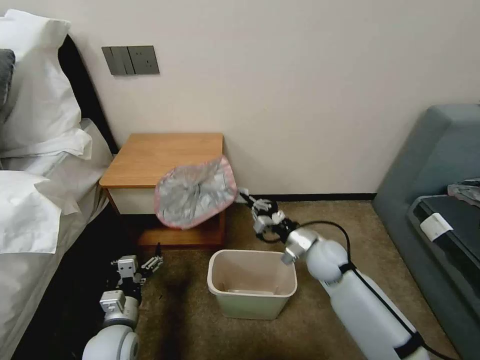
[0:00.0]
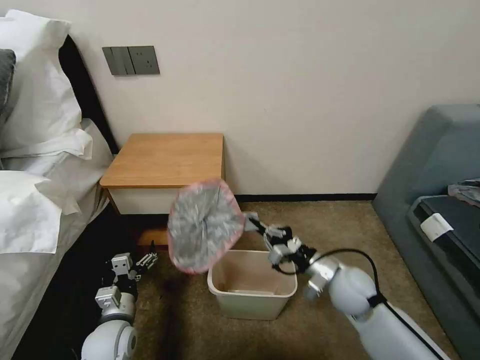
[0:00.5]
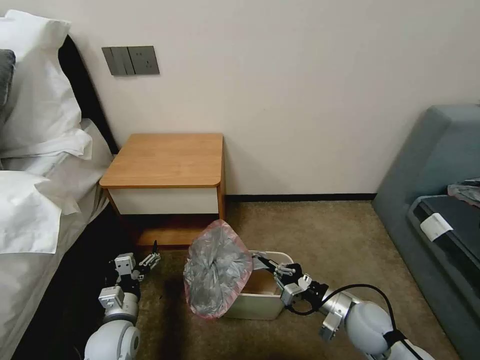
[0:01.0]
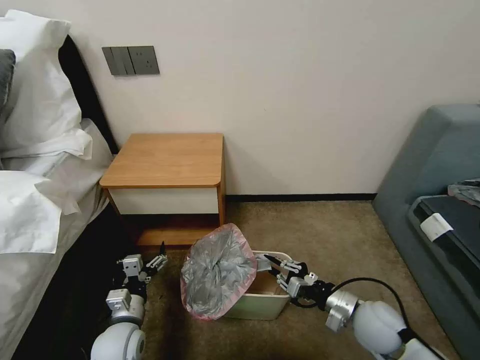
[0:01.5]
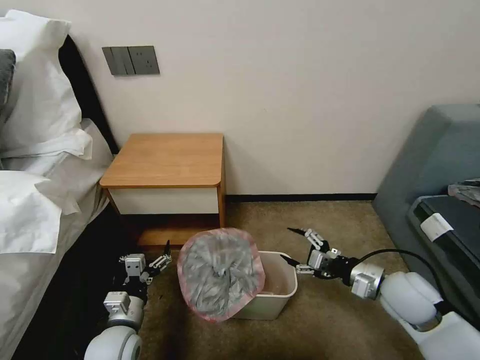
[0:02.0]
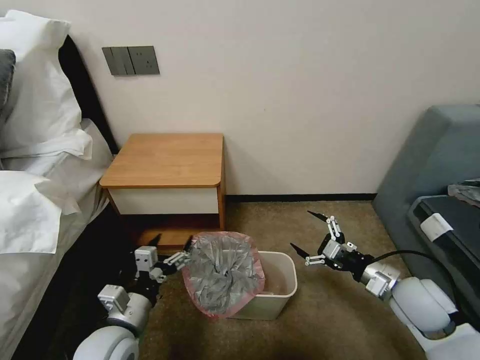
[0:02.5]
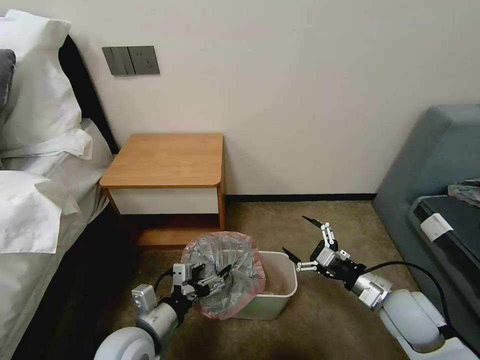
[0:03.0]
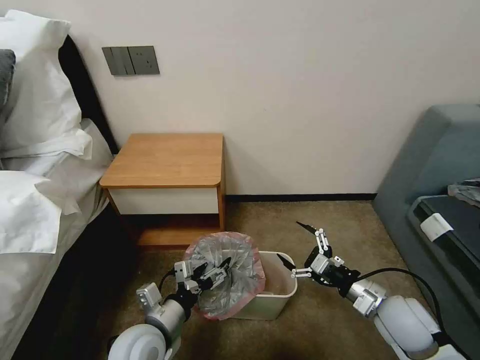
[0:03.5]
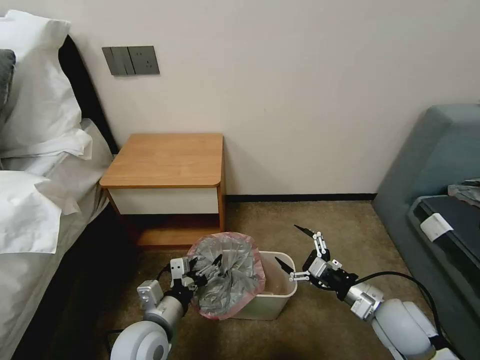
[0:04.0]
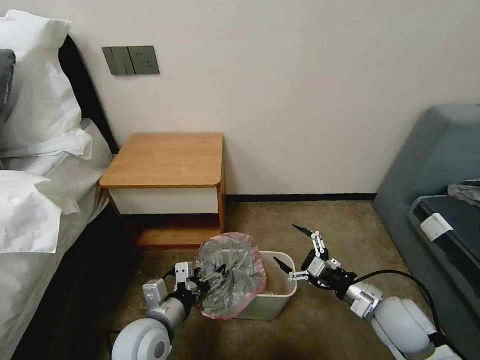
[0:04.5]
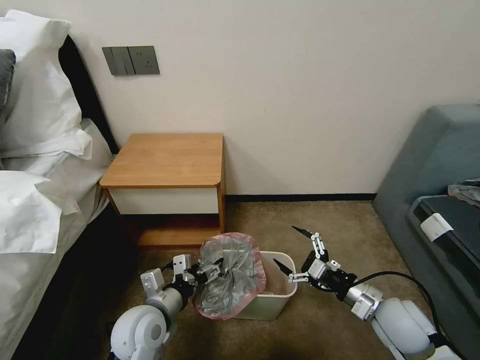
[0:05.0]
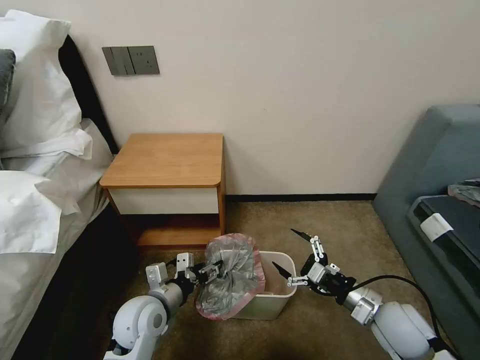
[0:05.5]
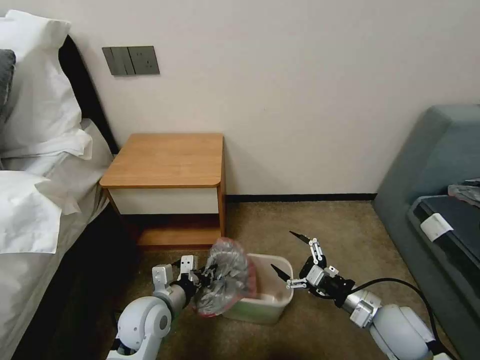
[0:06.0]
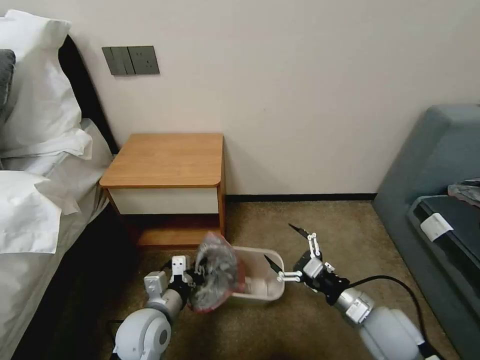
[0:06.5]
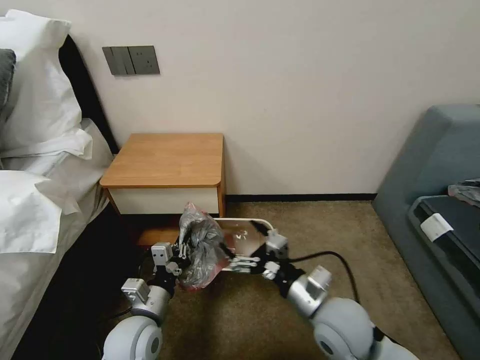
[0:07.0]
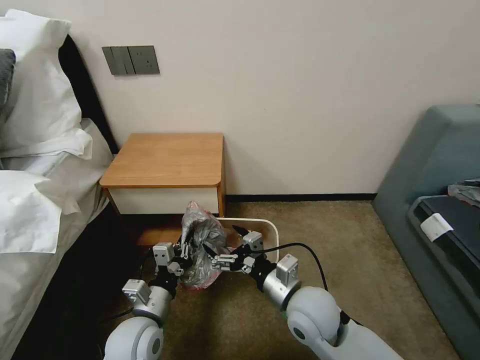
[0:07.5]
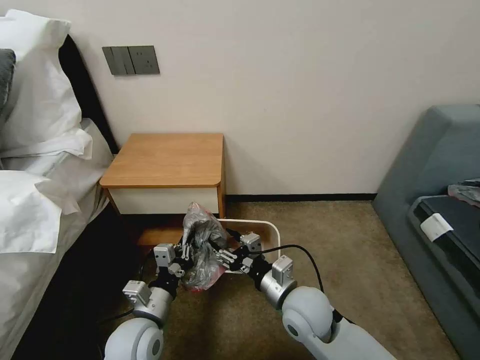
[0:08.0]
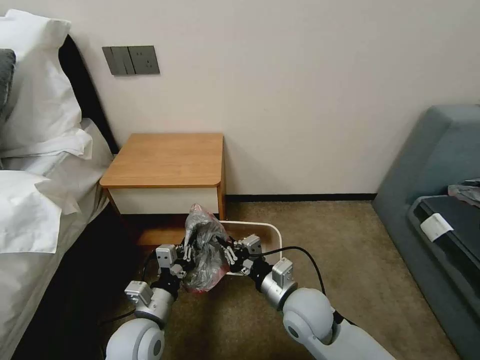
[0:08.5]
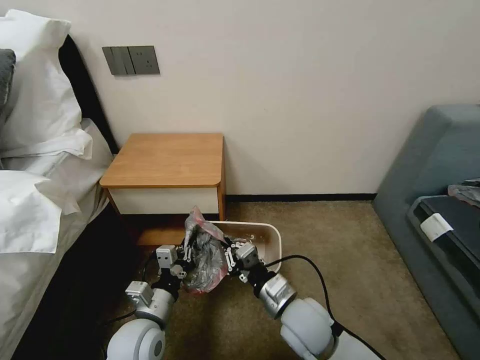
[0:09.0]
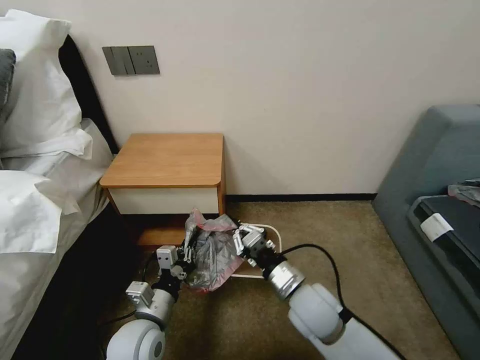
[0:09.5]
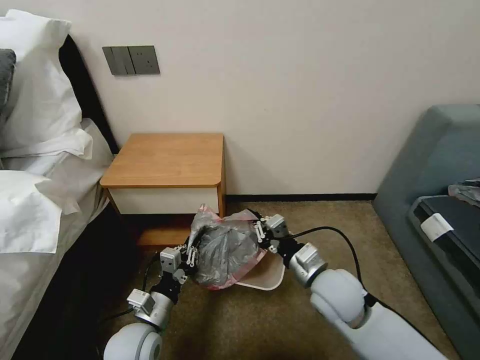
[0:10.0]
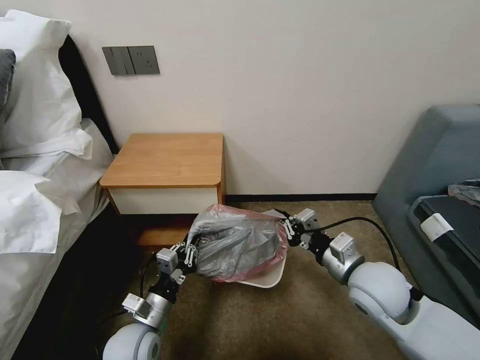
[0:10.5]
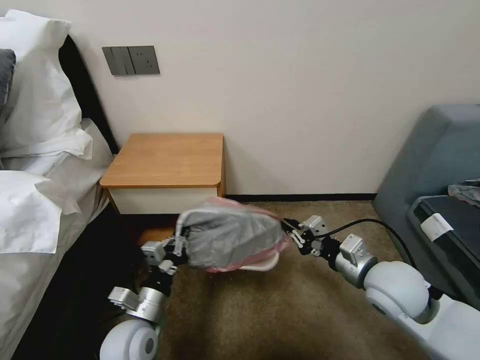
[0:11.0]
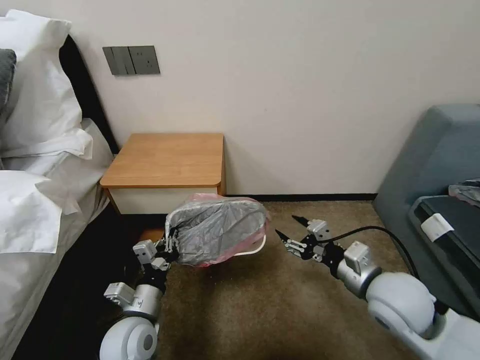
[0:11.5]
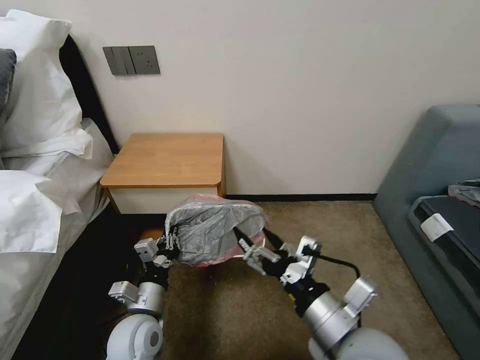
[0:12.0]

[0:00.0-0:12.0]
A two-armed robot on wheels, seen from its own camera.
Task of the whole recording: Pick up the garbage bag from the table and place it over the trash can.
0:00.0 to 0:02.0: The right gripper is displaced to the right and backward by roughly 15 cm, and opens up.
0:02.0 to 0:04.0: The left gripper shifts some 10 cm to the right and upward; the right gripper moves about 5 cm.
0:04.0 to 0:06.0: The left gripper shifts by approximately 5 cm, and closes its fingers.
0:06.0 to 0:08.0: The right gripper travels to the left by roughly 20 cm, and closes its fingers.
0:08.0 to 0:10.0: The right gripper goes about 5 cm to the right, and closes.
0:10.0 to 0:12.0: The right gripper goes roughly 15 cm backward and upward, and opens up.

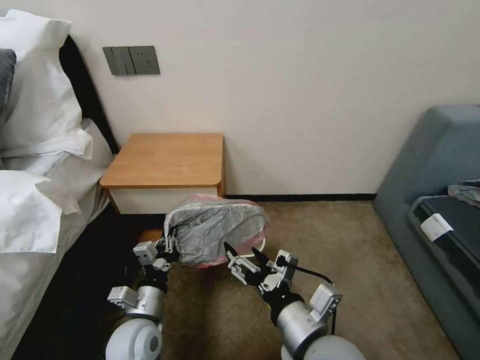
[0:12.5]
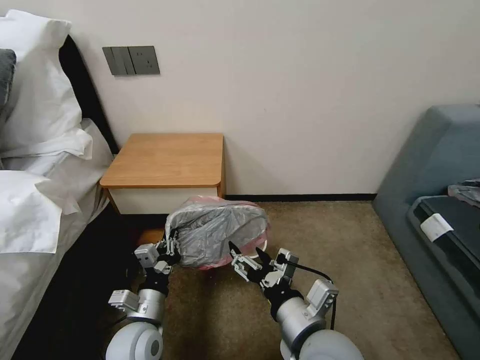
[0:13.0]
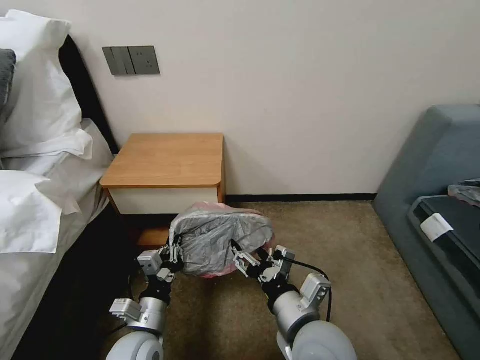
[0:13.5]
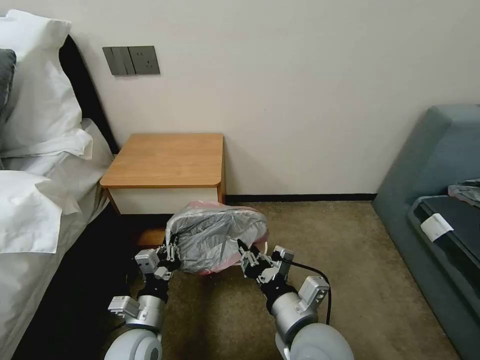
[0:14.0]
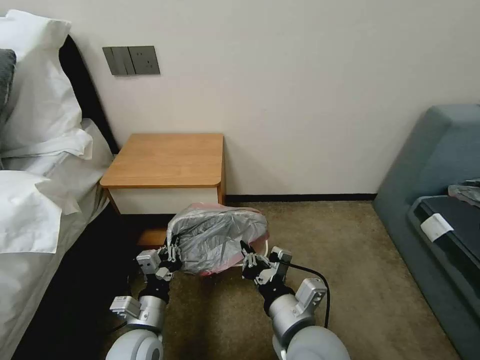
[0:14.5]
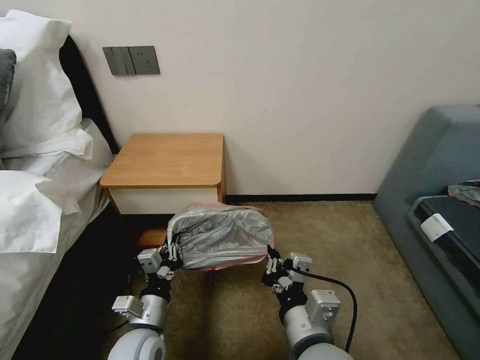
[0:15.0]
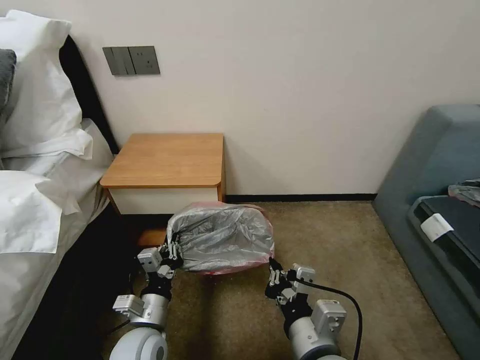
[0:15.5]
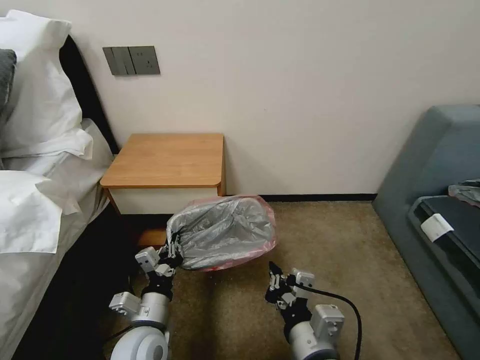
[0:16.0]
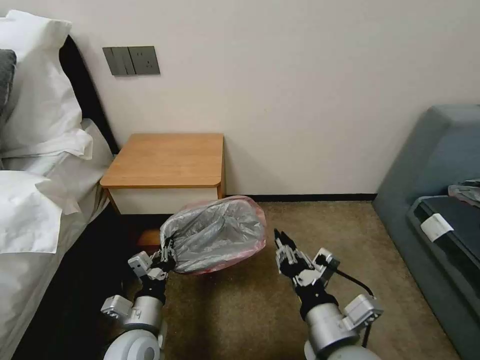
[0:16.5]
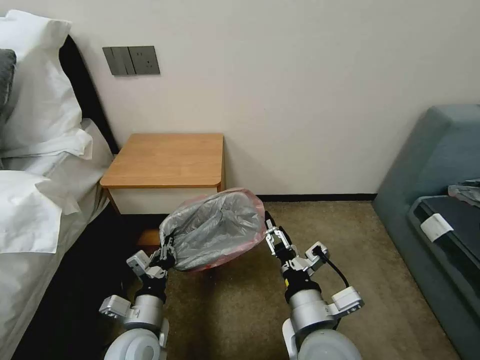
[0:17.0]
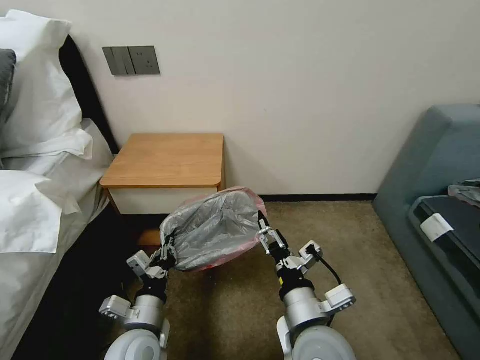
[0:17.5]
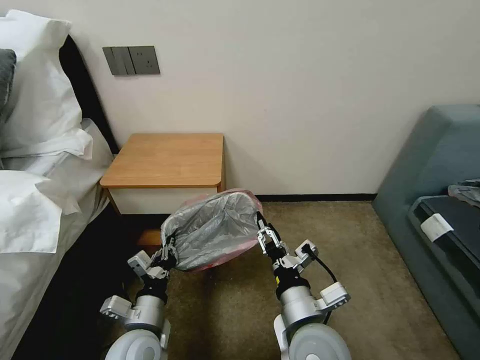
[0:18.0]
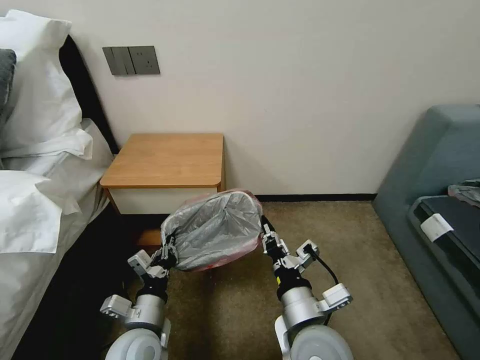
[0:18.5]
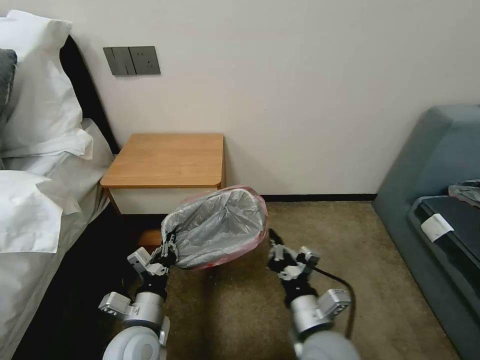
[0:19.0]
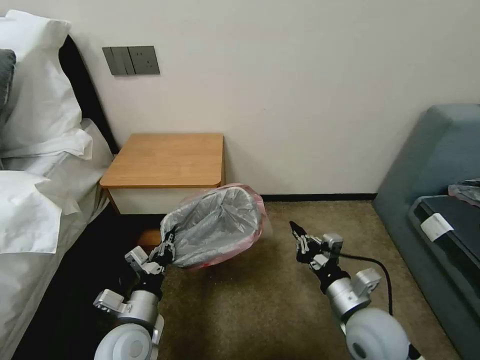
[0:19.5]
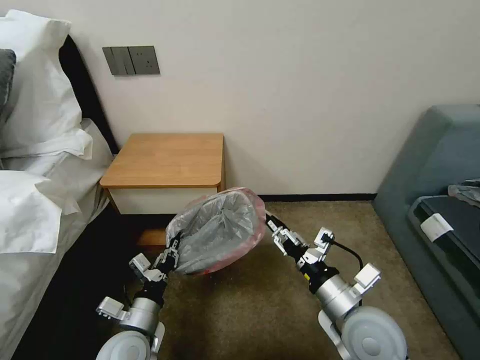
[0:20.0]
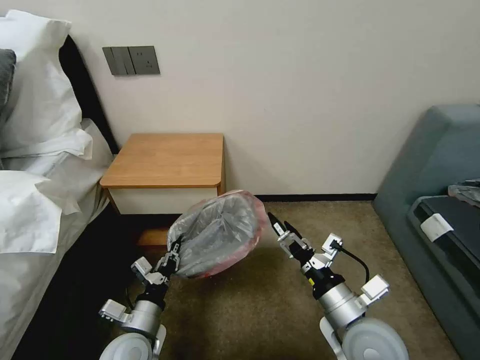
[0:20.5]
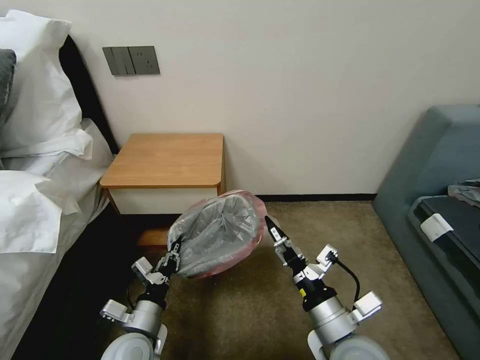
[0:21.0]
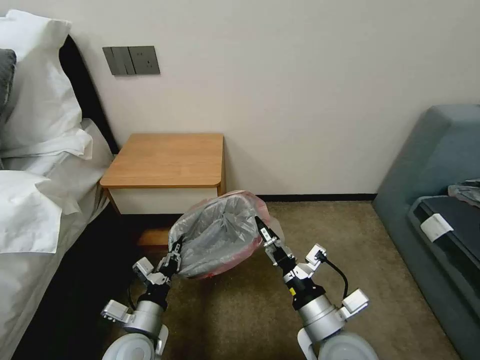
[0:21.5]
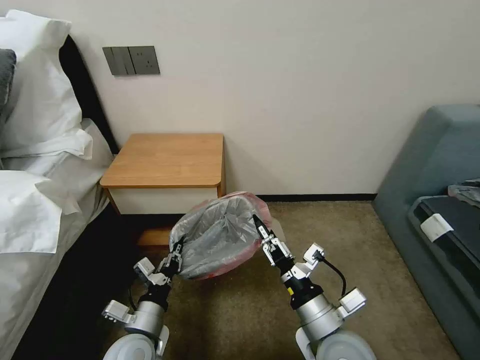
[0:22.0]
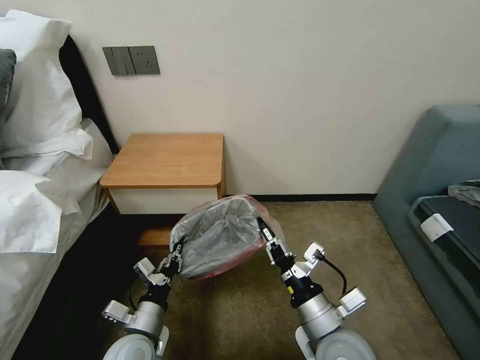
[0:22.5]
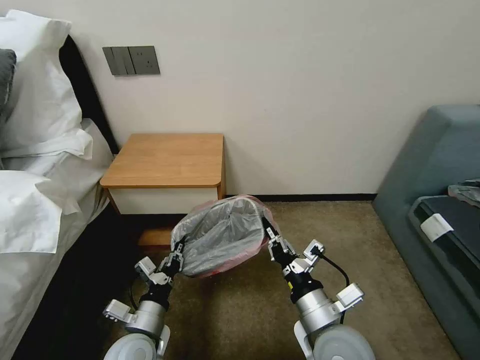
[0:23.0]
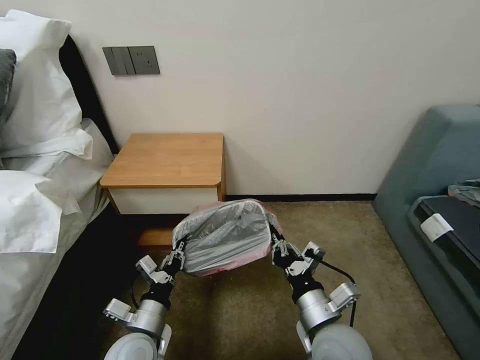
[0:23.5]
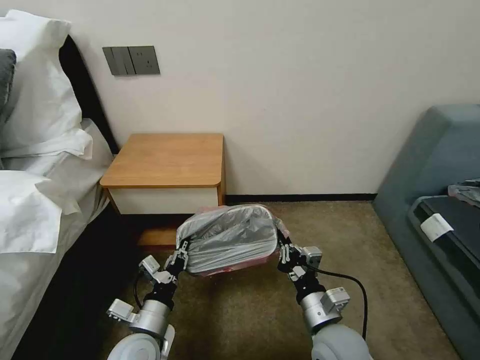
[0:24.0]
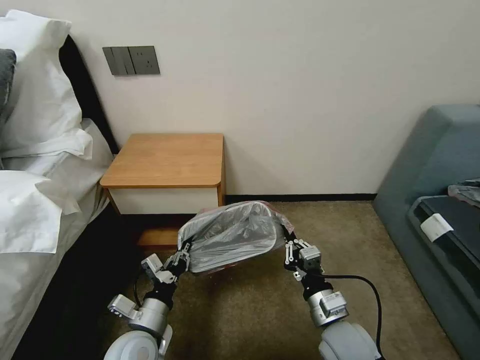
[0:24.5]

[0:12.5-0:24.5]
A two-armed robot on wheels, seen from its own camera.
Task of the whole recording: Pick up the garbage bag from the table and place it over the trash can.
0:12.5 to 0:14.5: The right gripper closes up.
0:14.5 to 0:16.5: The right gripper ends up about 5 cm from where it was.
0:16.5 to 0:18.5: The right gripper moves some 5 cm, and opens and closes again.
0:18.5 to 0:20.5: The right gripper moves to the right, about 10 cm, and opens up.
0:20.5 to 0:22.5: The right gripper ends up roughly 5 cm from where it was, and closes its fingers.
0:22.5 to 0:24.5: The right gripper travels downward by roughly 5 cm.

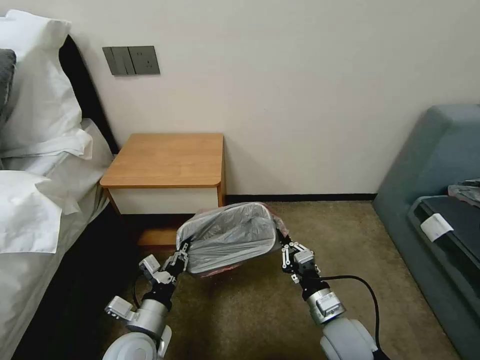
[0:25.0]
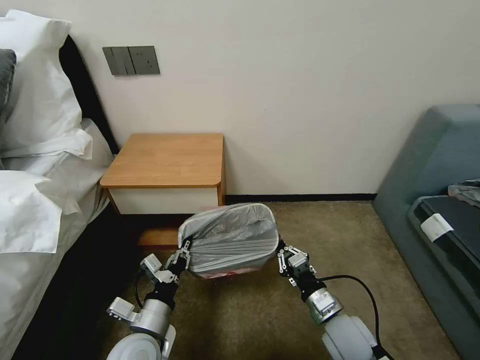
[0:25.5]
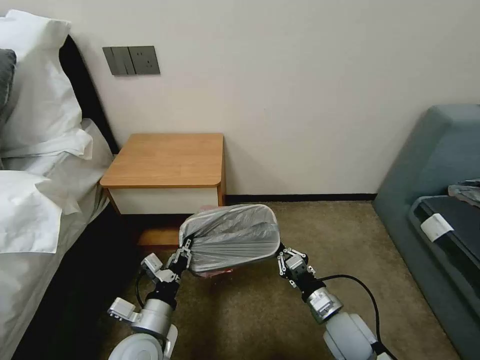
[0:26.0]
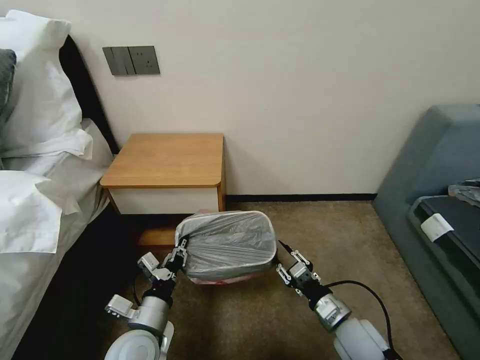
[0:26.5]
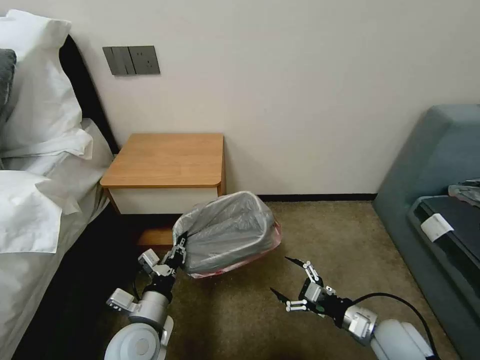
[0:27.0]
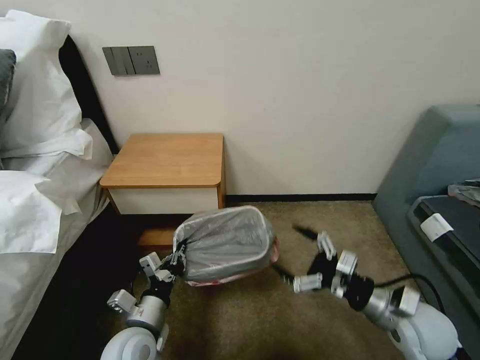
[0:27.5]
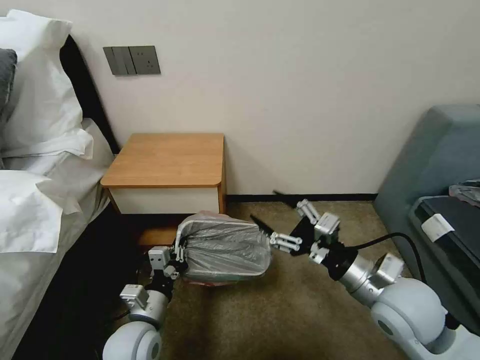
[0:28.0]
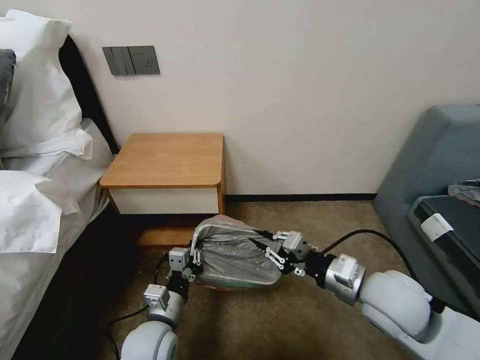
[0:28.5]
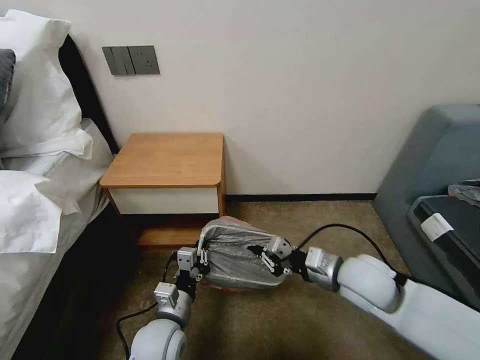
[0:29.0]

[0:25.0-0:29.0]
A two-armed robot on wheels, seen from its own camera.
Task of the whole recording: Pick up the garbage bag from the table and place it over the trash can.
0:25.0 to 0:27.0: The right gripper goes approximately 10 cm to the right, and opens up.
0:27.0 to 0:29.0: The right gripper shifts some 15 cm upward, to the left and forward, and closes its fingers.
